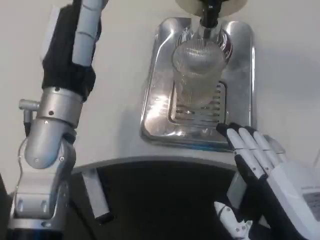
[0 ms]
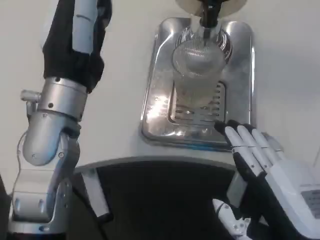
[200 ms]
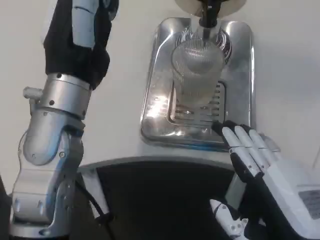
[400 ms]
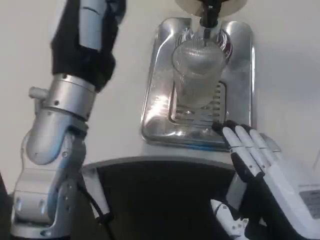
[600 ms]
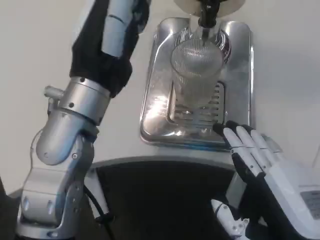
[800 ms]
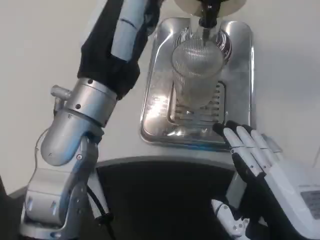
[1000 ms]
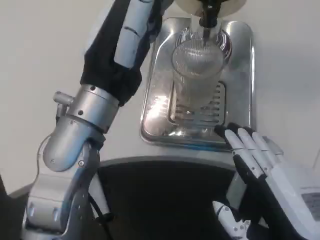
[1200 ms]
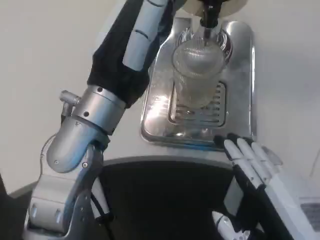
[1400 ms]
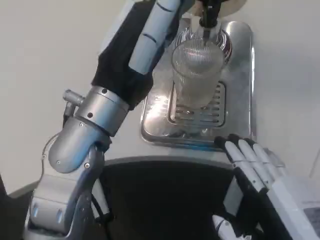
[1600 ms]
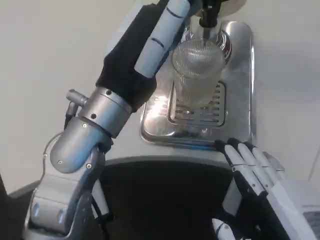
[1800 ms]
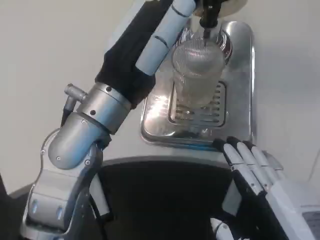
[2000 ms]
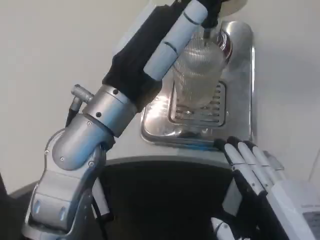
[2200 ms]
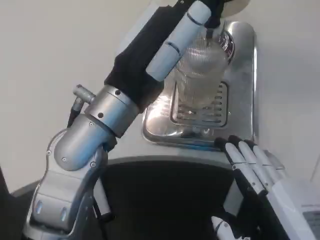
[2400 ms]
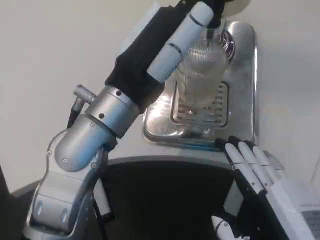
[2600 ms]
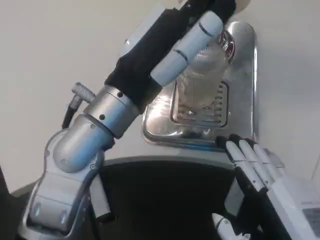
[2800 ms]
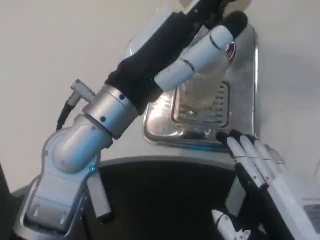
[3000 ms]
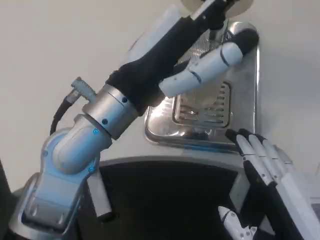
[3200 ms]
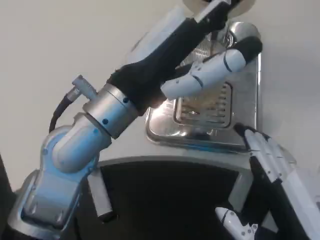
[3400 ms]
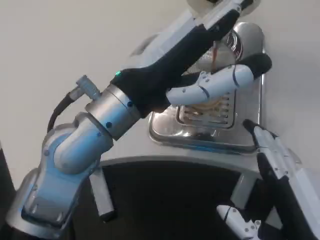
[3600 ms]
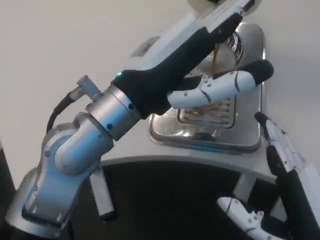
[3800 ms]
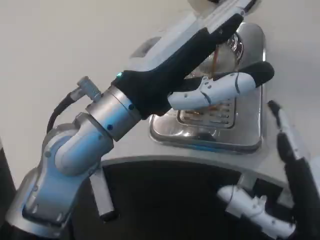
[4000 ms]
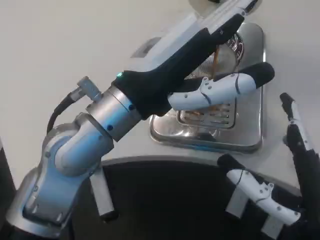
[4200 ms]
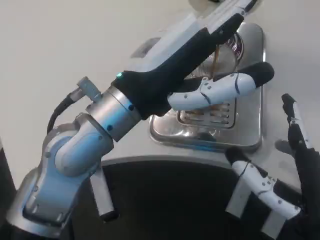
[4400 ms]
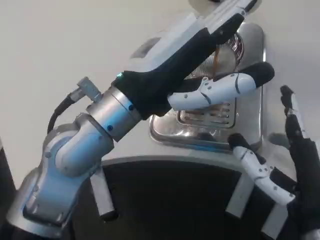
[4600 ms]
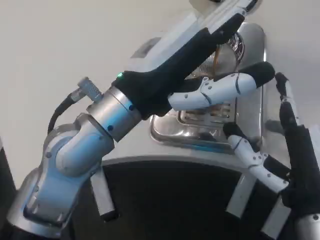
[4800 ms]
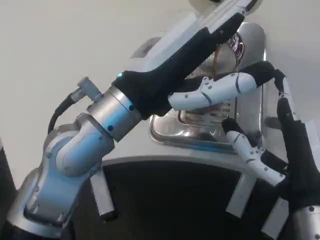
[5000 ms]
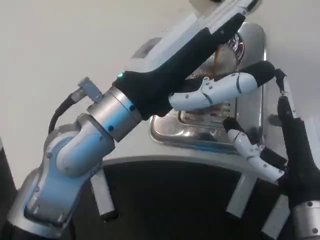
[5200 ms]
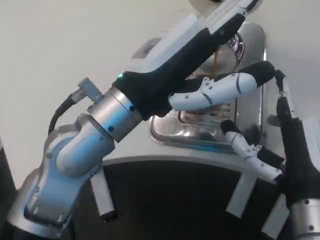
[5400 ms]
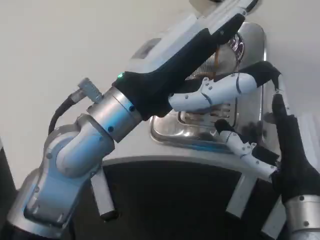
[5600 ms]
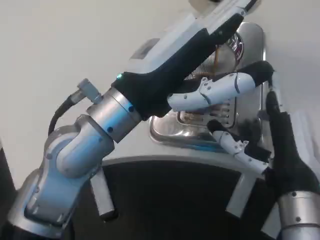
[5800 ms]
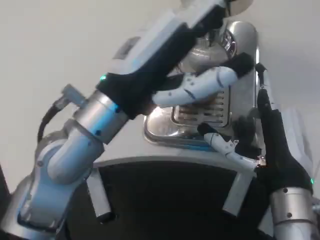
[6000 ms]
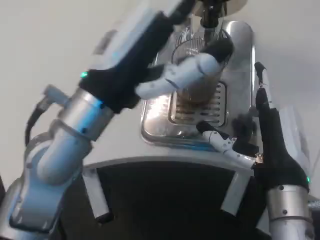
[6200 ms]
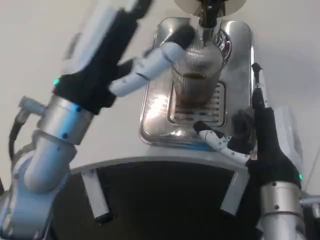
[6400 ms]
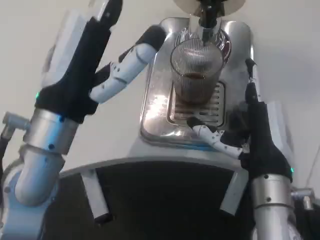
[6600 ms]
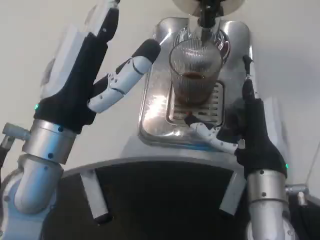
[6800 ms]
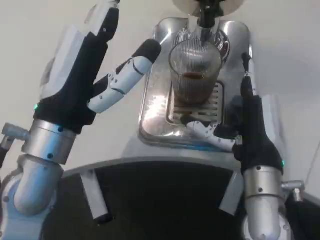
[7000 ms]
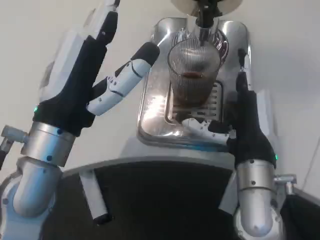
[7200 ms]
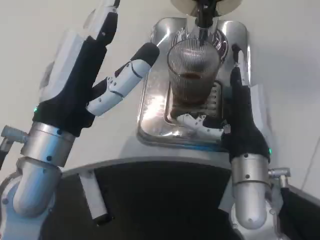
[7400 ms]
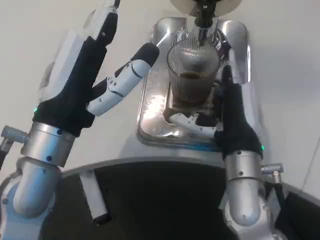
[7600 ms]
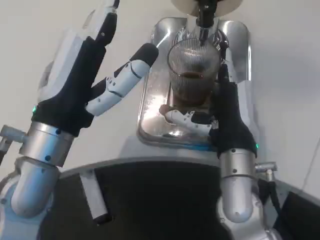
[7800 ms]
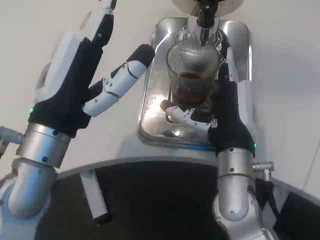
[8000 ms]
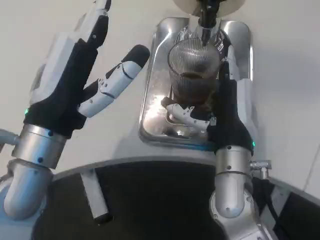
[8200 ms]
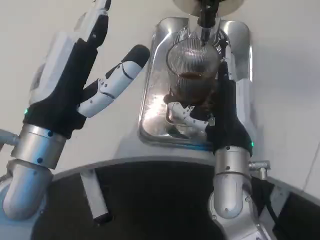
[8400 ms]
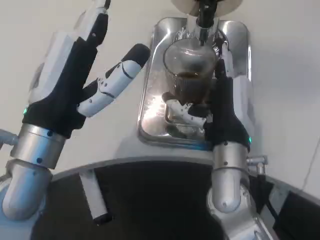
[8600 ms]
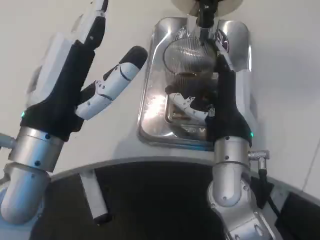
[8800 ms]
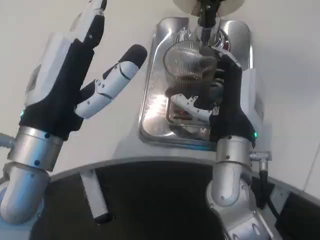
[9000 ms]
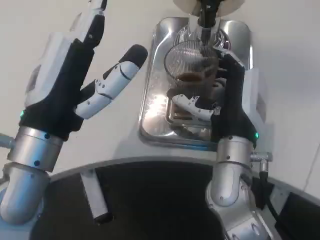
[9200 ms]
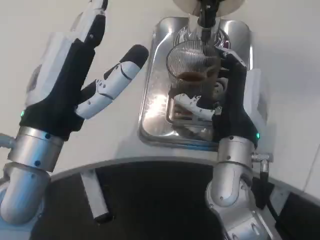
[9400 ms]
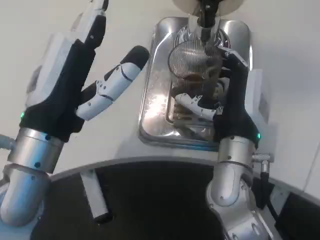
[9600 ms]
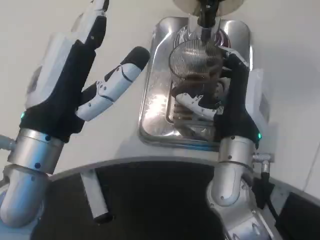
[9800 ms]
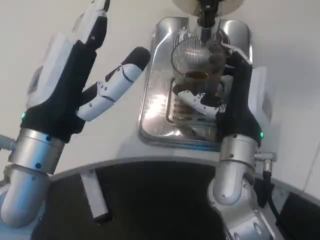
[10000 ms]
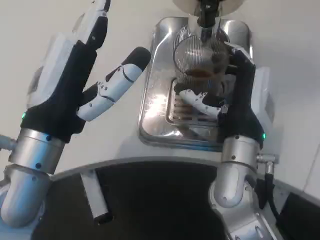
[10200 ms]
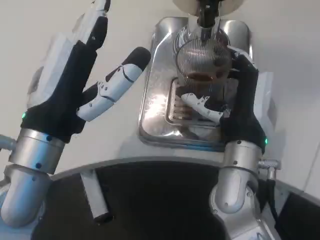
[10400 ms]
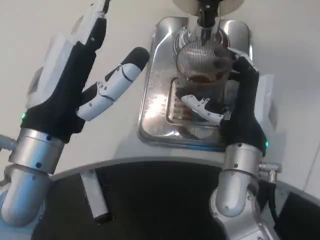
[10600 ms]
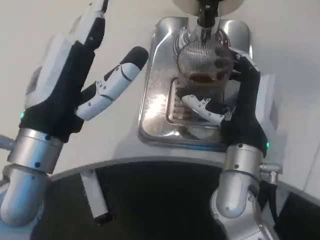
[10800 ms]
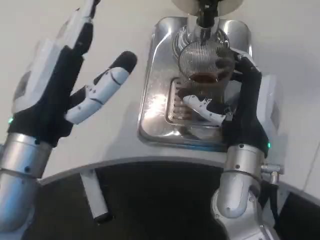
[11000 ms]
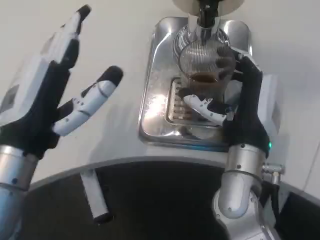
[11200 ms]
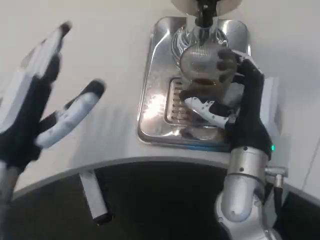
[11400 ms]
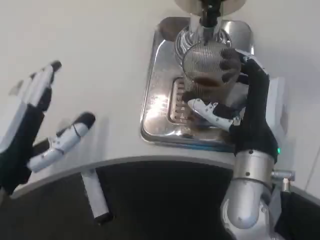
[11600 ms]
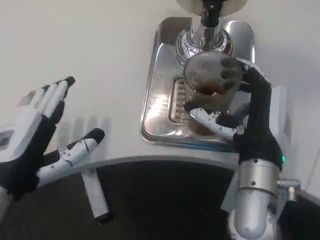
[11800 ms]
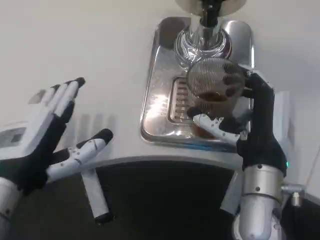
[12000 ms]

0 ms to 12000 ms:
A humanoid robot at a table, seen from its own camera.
Task of the whole recording: Grasp the cup under the faucet to collect the drink, then remove the cup.
4400 ms to 6000 ms: The right hand shifts approximately 5 cm forward.
6000 ms to 7600 ms: The left hand ends up approximately 5 cm from where it was, while the right hand is displaced forward by about 5 cm.
9000 ms to 10400 ms: There are only small adjustments of the hands.
10400 ms to 12000 ms: The left hand shifts by about 5 cm.

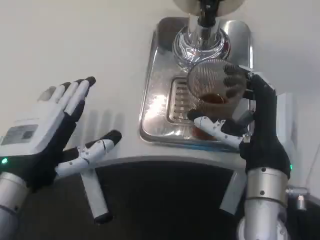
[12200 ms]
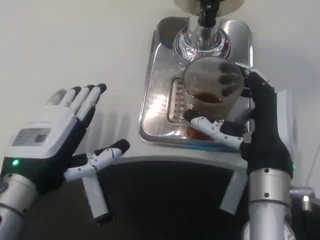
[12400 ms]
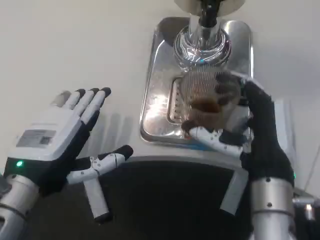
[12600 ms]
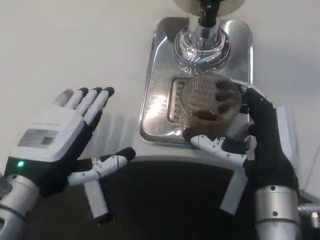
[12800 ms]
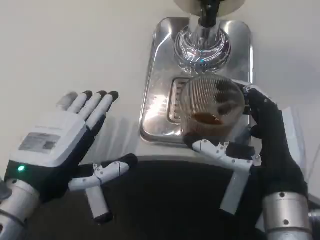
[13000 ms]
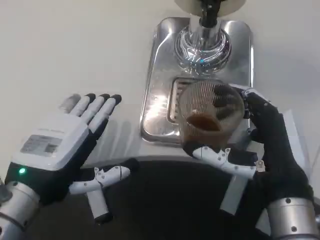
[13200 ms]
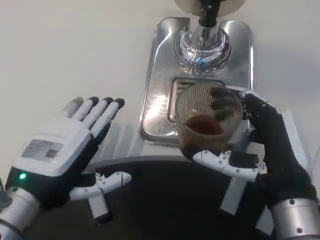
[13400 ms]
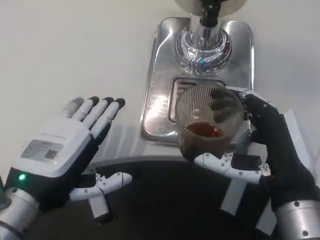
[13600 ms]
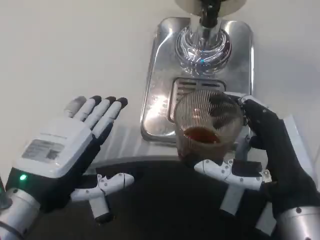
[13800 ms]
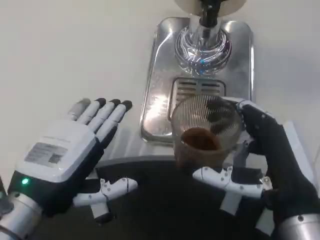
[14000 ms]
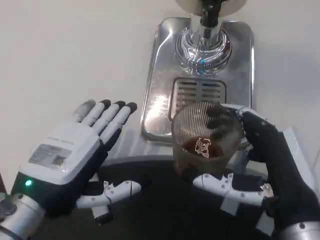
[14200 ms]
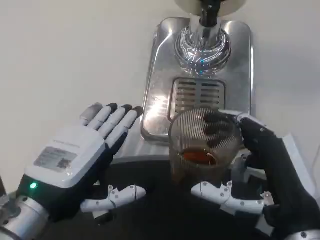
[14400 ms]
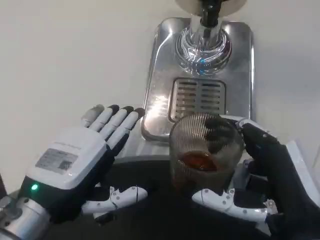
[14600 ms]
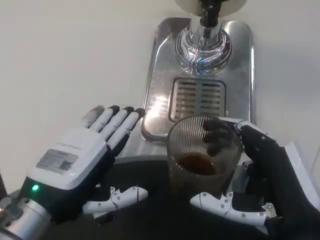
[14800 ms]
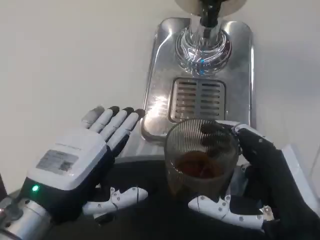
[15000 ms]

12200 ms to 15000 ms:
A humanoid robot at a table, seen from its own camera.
Task of the whole recording: Grasp the cup under the faucet to collect the drink, then remove the cup.
12200 ms to 13600 ms: The right hand travels backward by some 5 cm.
13600 ms to 15000 ms: The right hand moves backward, roughly 5 cm.

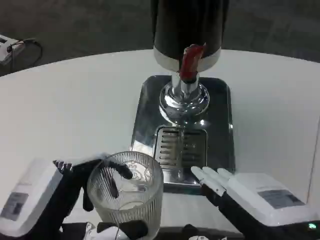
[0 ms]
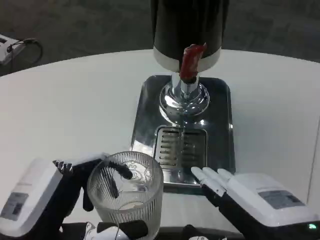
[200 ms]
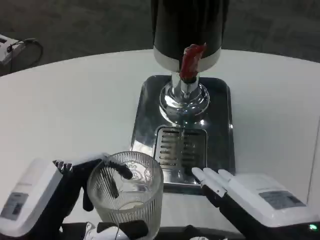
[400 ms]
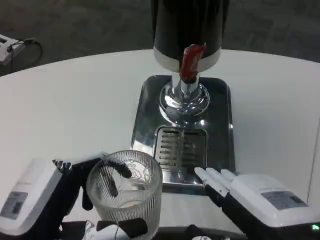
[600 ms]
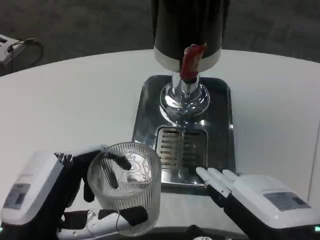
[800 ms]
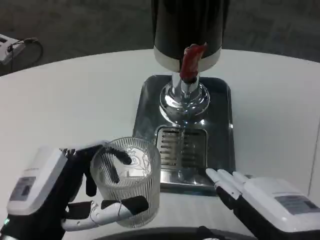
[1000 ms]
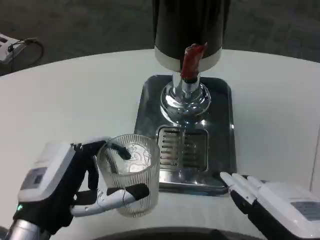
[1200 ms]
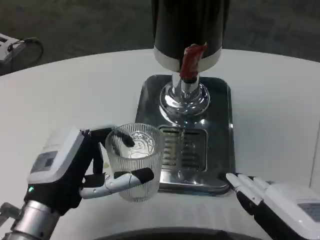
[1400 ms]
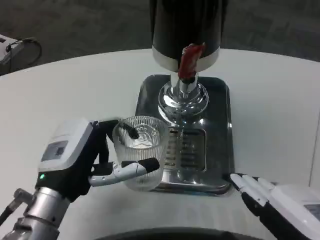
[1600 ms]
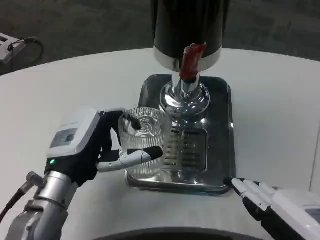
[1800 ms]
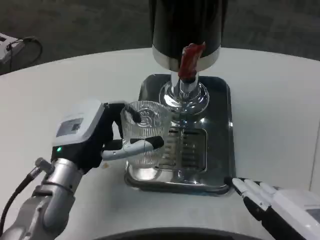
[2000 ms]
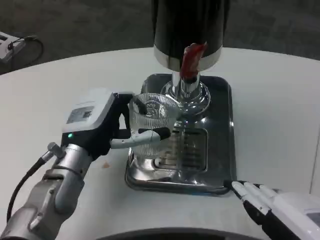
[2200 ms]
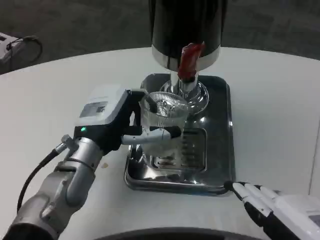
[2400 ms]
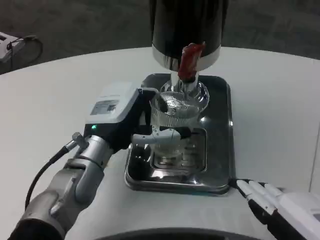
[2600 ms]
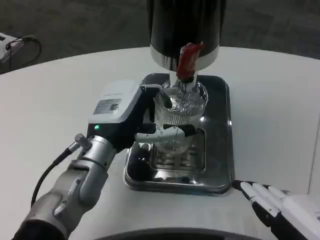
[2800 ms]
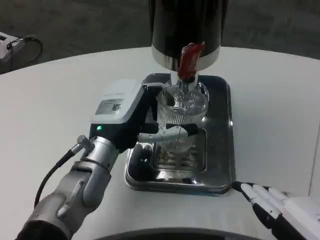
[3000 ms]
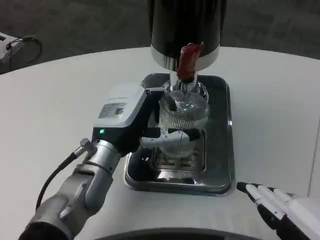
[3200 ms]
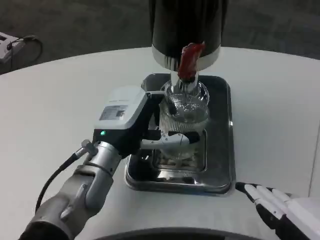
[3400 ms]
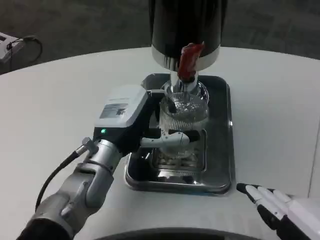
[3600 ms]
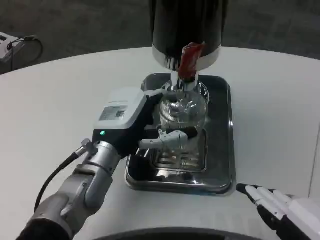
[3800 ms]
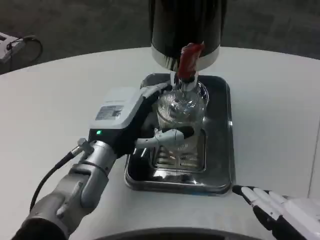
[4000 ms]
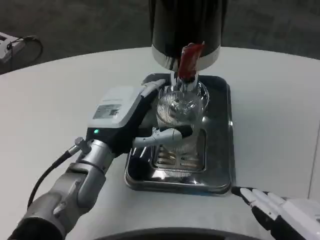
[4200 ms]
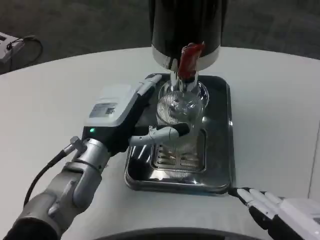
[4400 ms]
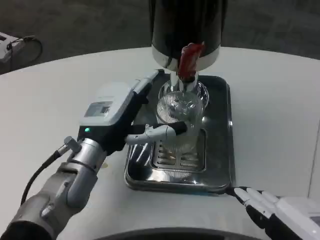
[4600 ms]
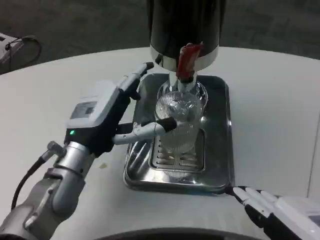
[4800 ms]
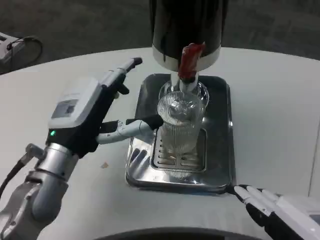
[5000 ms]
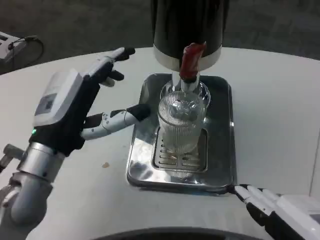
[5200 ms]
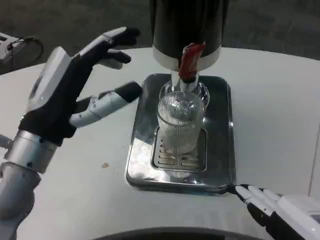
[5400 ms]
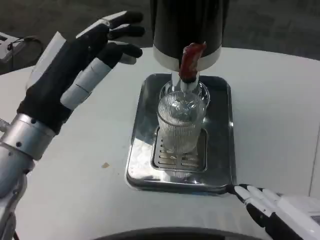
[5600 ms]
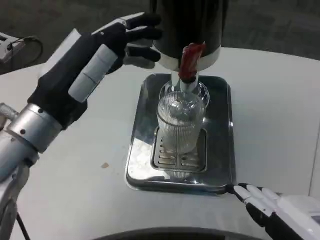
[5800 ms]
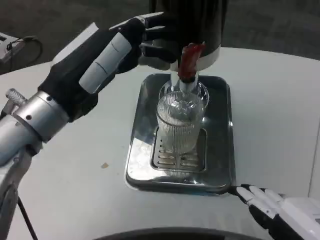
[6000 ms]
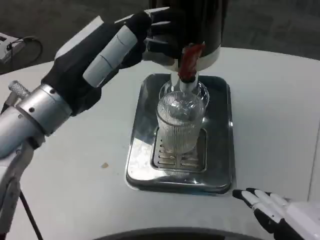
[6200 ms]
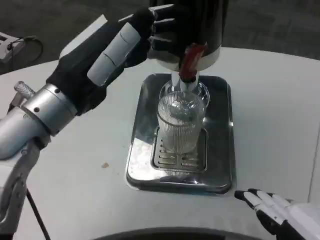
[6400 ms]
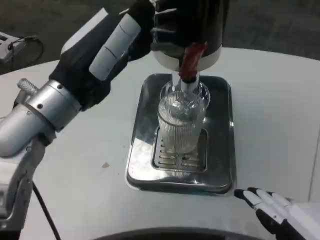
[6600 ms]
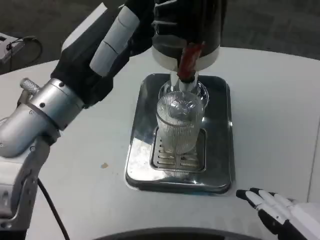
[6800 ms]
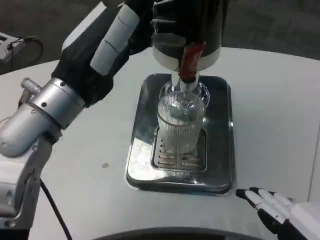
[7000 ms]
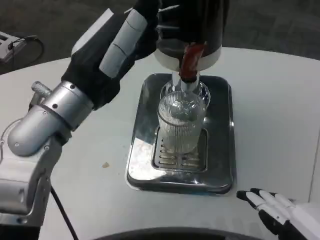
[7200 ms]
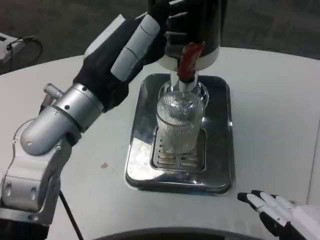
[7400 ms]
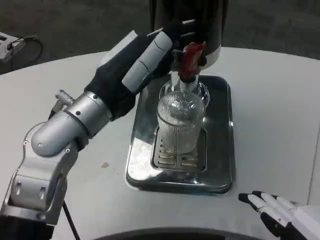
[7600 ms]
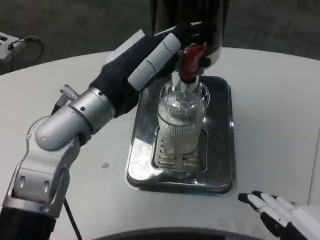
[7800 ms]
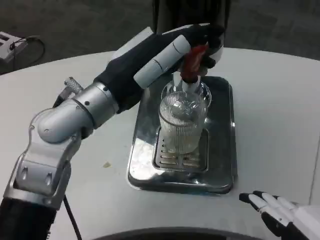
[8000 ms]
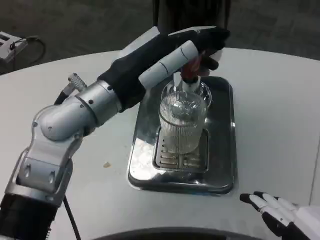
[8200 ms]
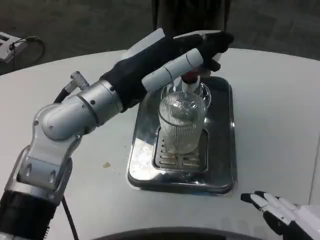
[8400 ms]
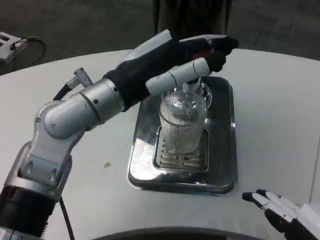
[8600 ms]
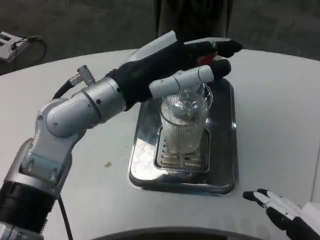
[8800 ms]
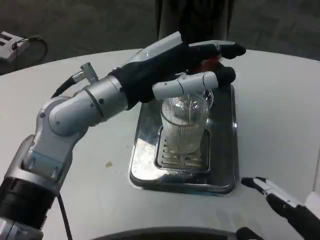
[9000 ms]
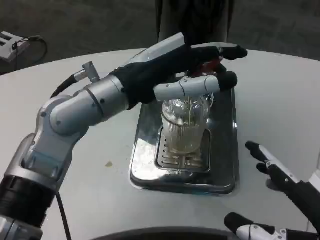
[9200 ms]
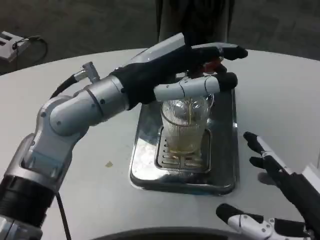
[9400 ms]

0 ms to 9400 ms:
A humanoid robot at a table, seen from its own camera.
Task of the whole recording: Grasp the cup under the faucet to collect the drink, then remove the cup.
0 ms to 1600 ms: The left hand moves forward, roughly 10 cm.
1600 ms to 3200 ms: The left hand travels forward and to the right by about 10 cm.
4800 ms to 6200 ms: The left hand shifts roughly 10 cm upward.
6200 ms to 7800 ms: The left hand moves roughly 5 cm.
